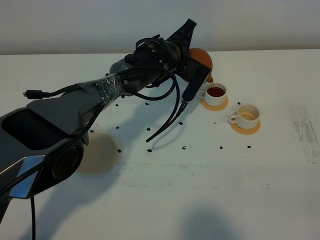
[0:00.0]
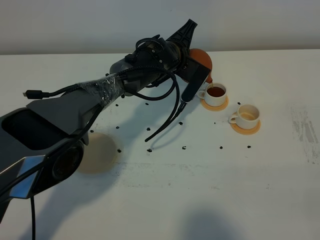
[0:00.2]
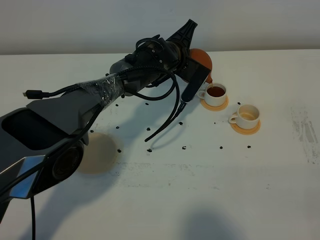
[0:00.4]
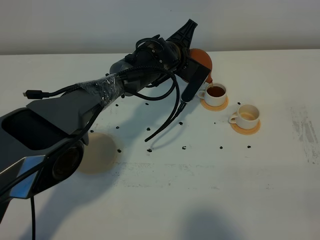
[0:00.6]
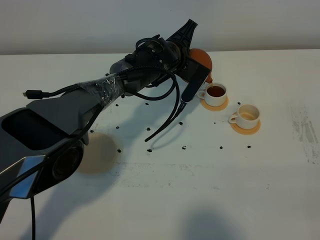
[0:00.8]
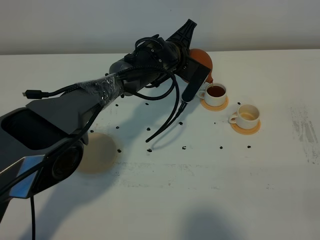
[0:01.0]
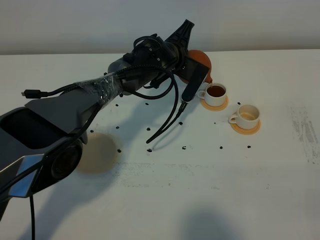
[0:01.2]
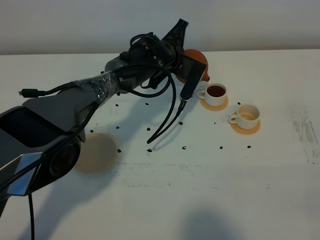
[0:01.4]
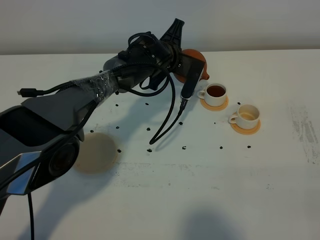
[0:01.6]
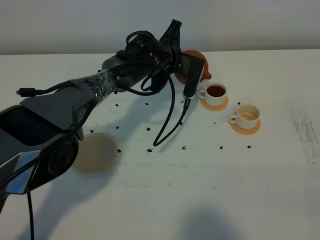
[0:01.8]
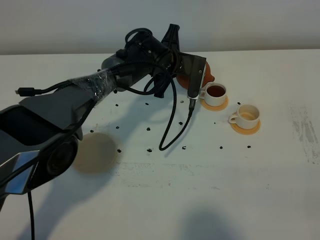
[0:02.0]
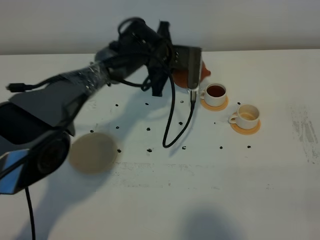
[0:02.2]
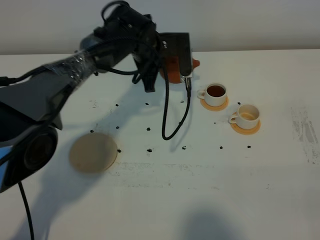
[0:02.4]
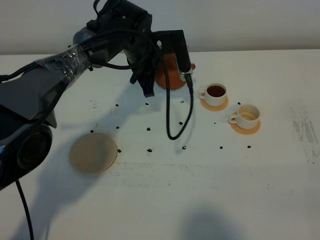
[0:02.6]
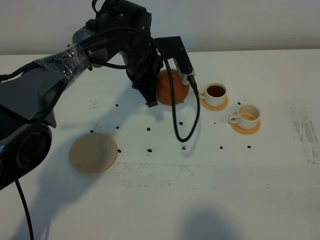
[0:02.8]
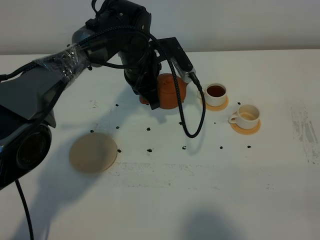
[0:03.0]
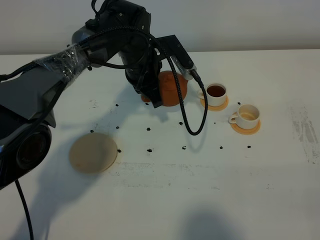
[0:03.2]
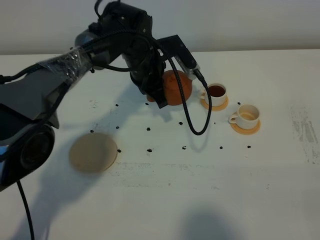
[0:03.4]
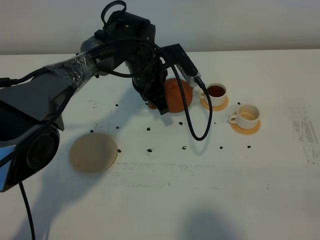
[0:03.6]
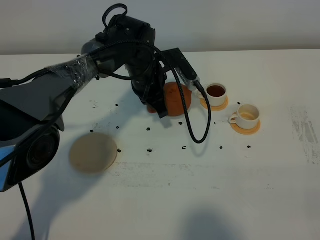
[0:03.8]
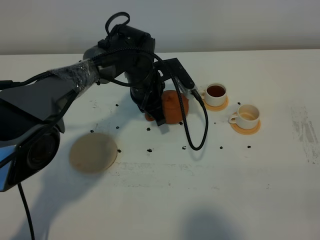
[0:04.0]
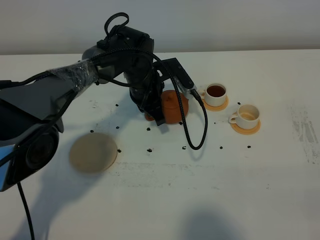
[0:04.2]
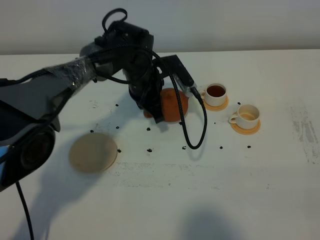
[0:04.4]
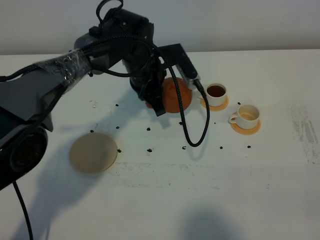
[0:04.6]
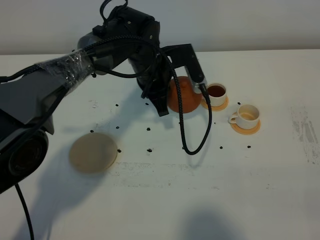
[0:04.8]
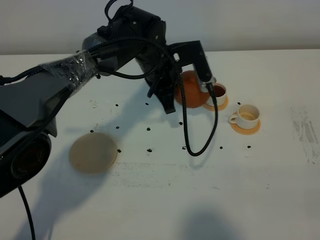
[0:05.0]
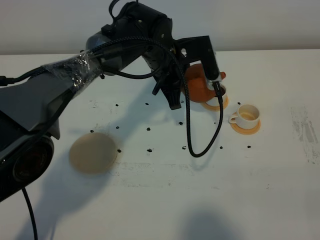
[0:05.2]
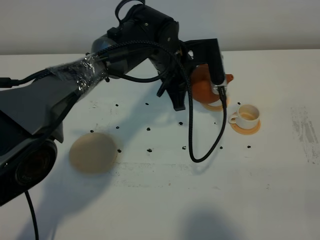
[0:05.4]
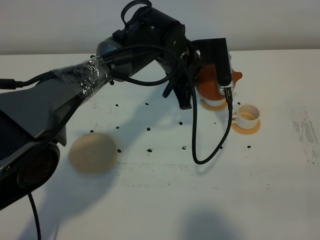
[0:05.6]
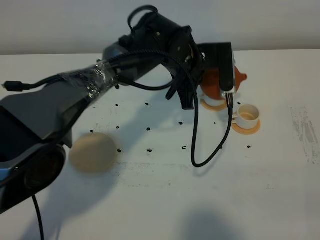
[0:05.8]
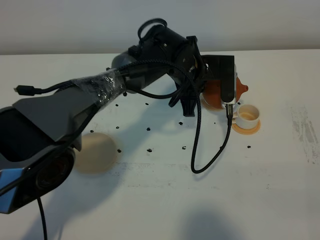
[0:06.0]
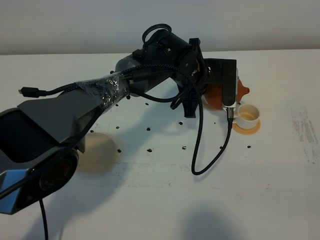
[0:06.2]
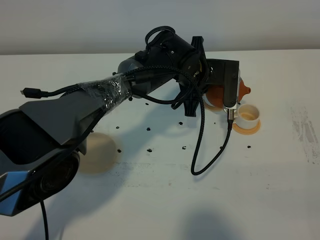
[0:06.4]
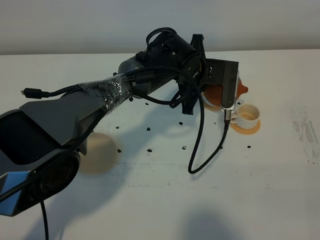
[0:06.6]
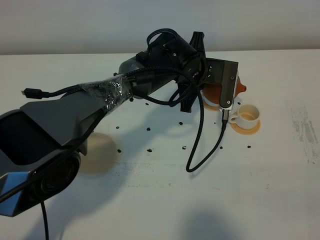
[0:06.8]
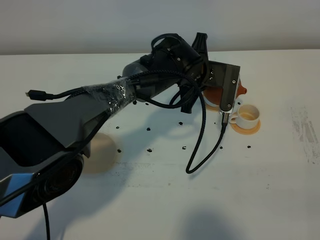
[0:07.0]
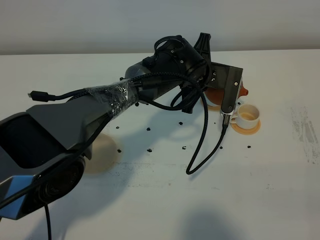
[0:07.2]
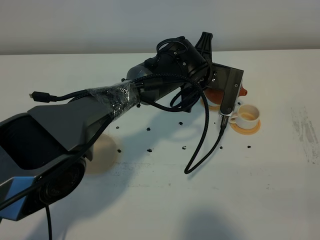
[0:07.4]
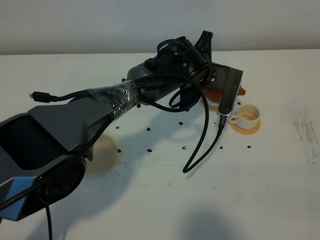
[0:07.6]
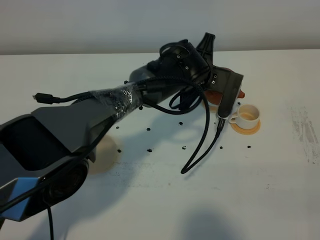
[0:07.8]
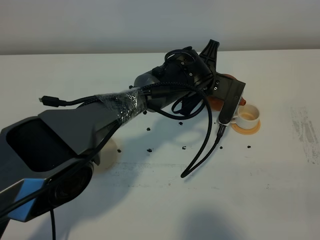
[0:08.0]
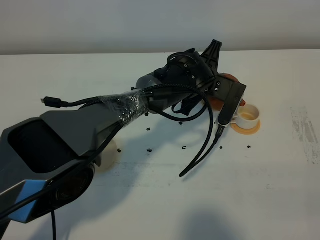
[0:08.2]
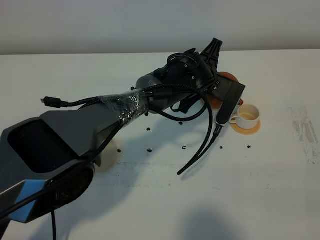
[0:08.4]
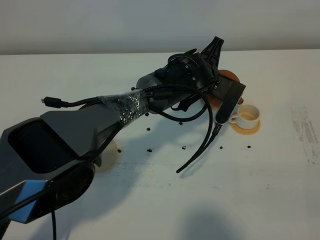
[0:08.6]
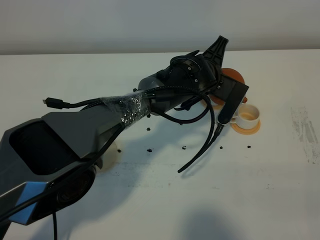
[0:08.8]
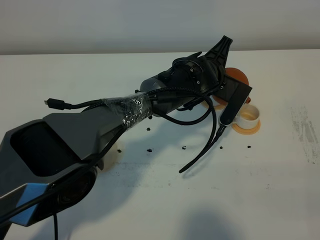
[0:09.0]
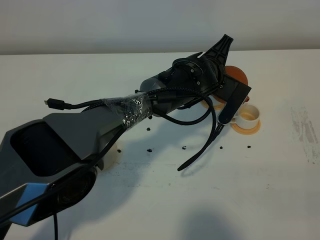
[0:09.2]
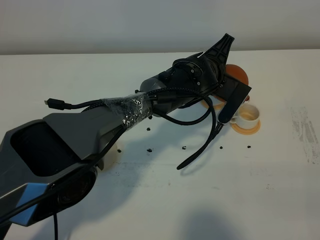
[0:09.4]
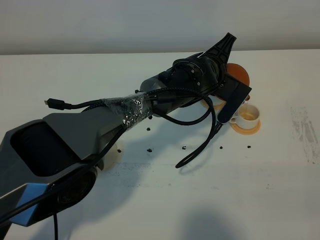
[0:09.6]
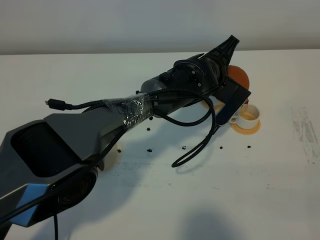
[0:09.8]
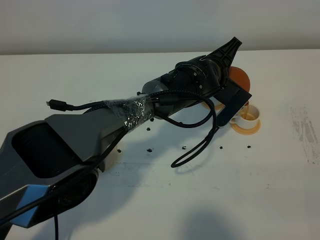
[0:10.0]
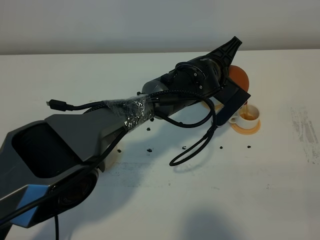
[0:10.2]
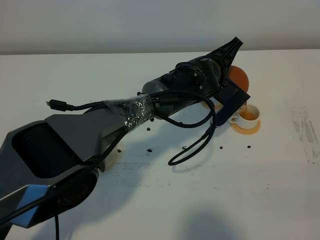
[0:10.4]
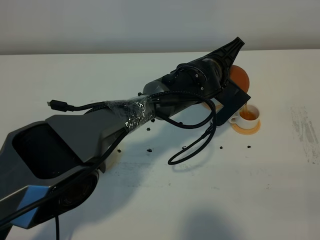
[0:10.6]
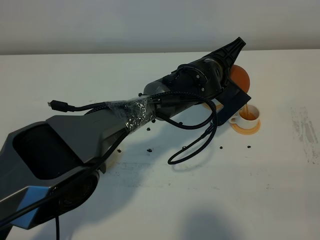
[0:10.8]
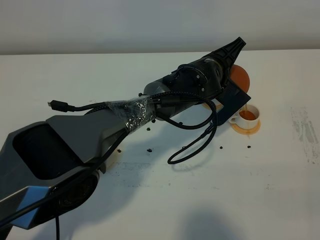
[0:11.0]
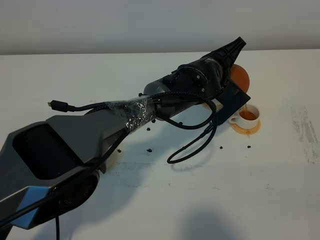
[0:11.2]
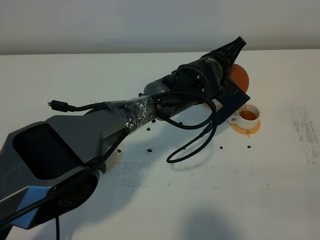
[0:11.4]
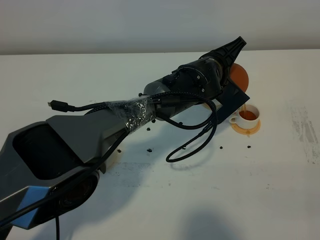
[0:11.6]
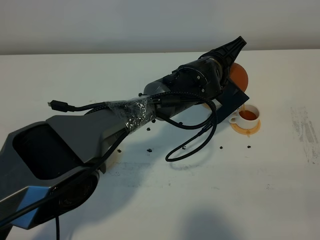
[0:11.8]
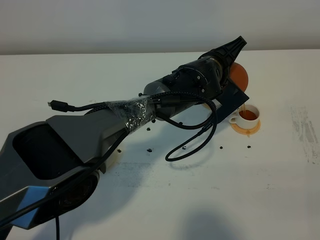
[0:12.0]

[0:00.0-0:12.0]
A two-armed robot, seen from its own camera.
Task of the whole recording: grasp the brown teapot and pour the tea into the two white teacups one by one, put the brown teapot back in its original place.
0:00.0 to 0:01.6: The grippers make only small movements.
0:01.6 to 0:03.0: The left gripper shifts by roughly 5 cm.
0:03.0 to 0:04.4: The grippers stay close to where they were, moving slightly.
0:04.4 to 0:06.0: The left gripper is displaced to the right by roughly 10 cm.
0:07.6 to 0:09.0: The grippers make only small movements.
0:09.0 to 0:10.4: The grippers stay close to where they were, moving slightly.
0:10.4 to 0:12.0: The grippers stay close to where they were, moving slightly.

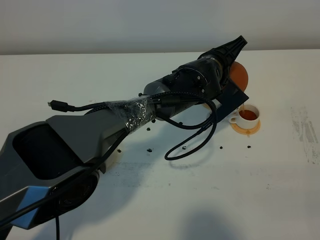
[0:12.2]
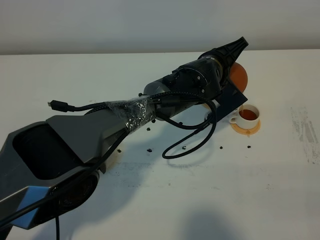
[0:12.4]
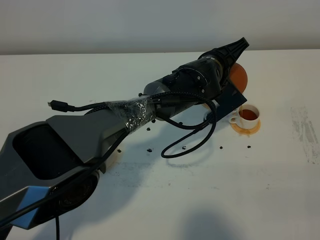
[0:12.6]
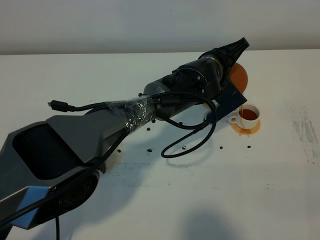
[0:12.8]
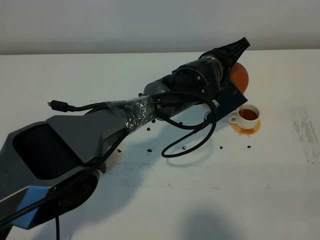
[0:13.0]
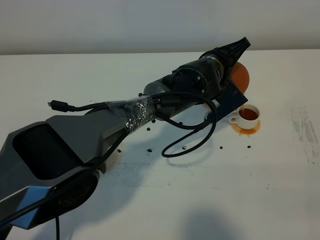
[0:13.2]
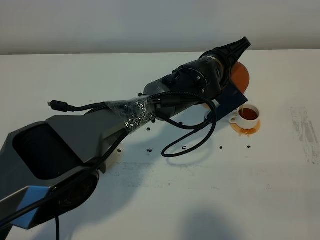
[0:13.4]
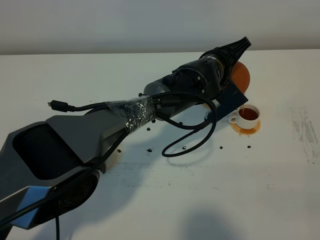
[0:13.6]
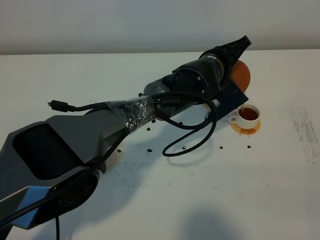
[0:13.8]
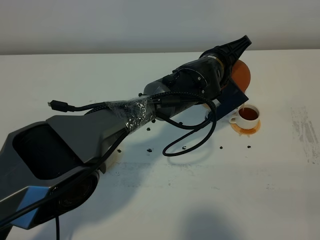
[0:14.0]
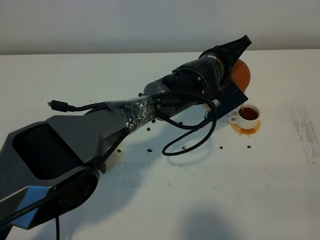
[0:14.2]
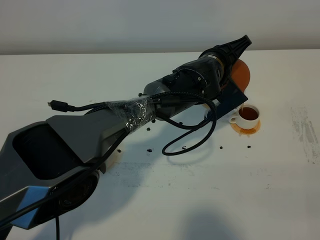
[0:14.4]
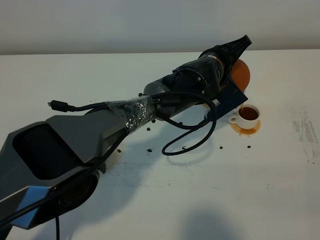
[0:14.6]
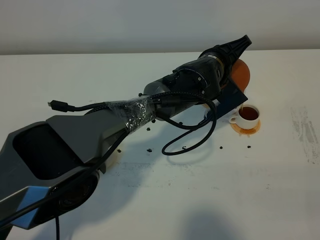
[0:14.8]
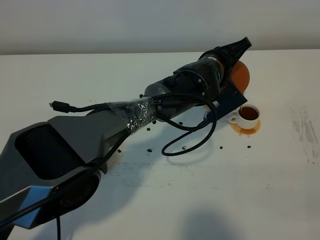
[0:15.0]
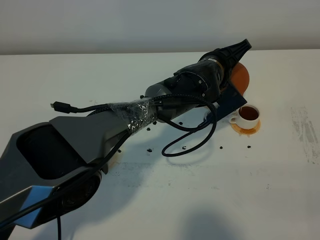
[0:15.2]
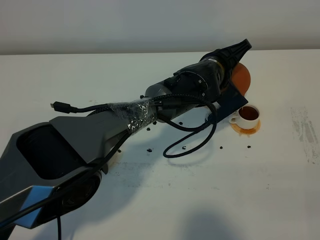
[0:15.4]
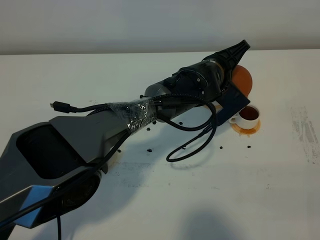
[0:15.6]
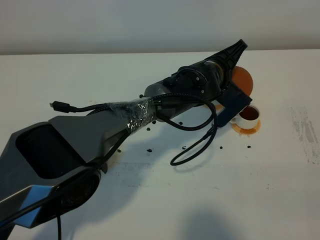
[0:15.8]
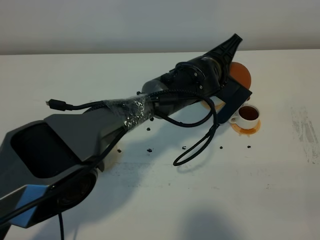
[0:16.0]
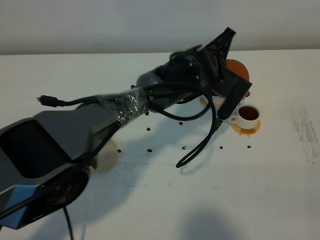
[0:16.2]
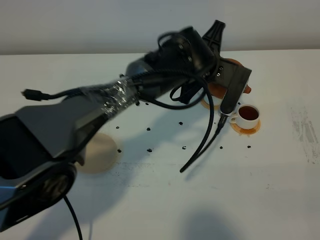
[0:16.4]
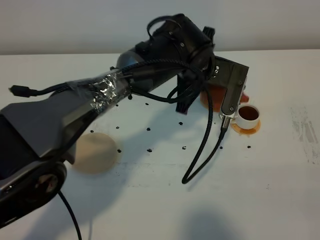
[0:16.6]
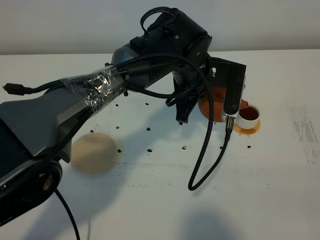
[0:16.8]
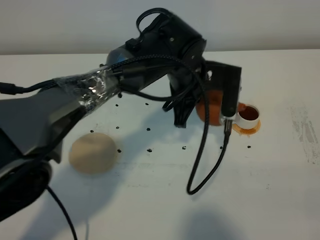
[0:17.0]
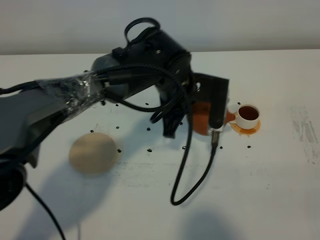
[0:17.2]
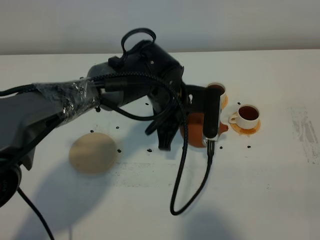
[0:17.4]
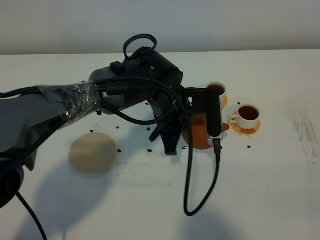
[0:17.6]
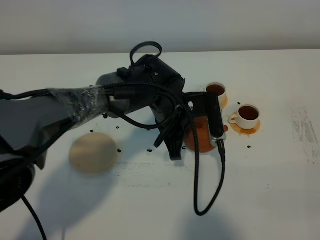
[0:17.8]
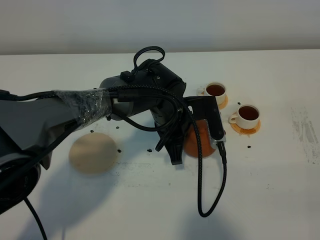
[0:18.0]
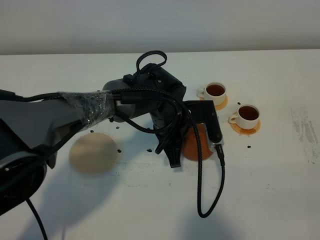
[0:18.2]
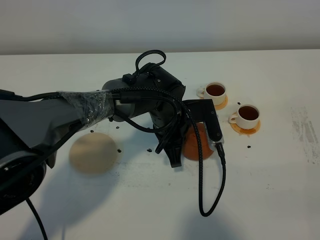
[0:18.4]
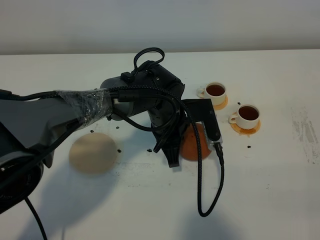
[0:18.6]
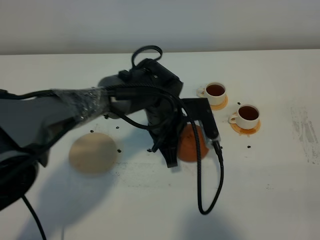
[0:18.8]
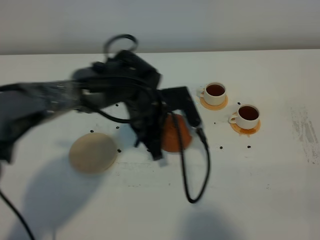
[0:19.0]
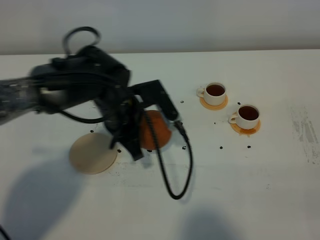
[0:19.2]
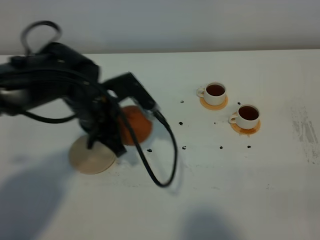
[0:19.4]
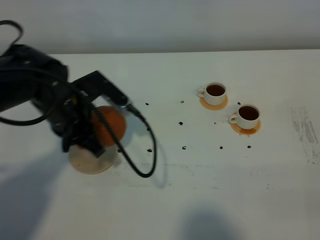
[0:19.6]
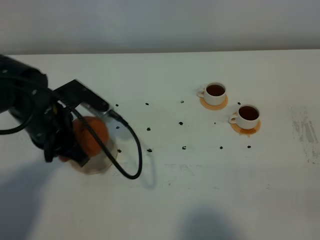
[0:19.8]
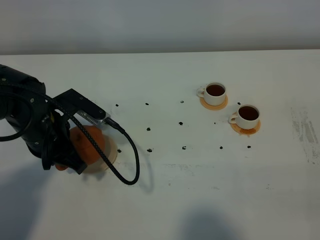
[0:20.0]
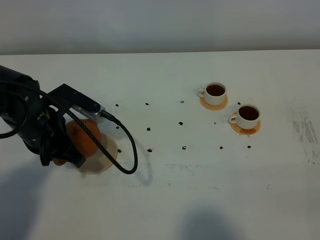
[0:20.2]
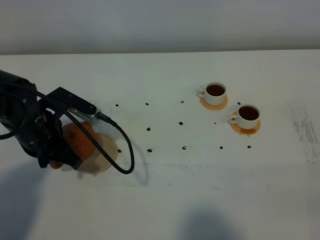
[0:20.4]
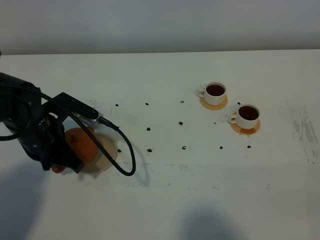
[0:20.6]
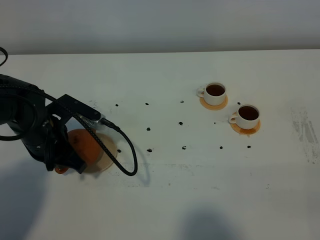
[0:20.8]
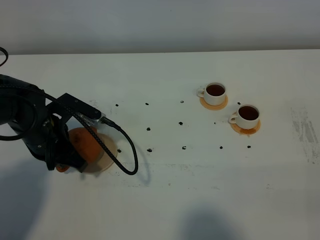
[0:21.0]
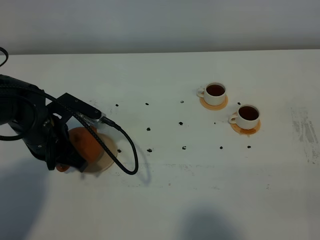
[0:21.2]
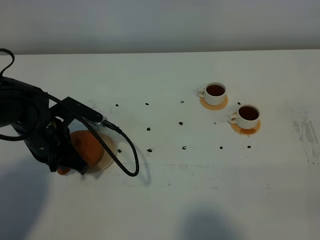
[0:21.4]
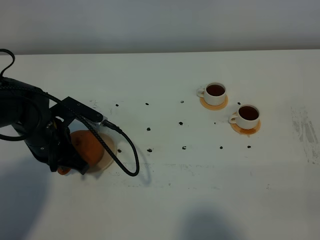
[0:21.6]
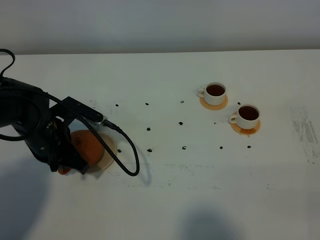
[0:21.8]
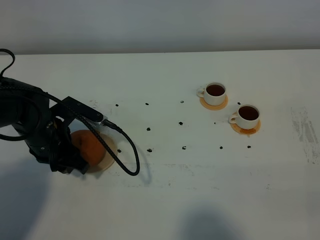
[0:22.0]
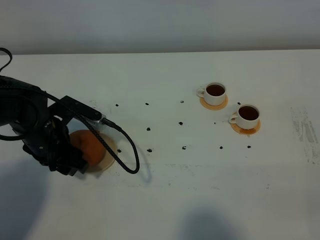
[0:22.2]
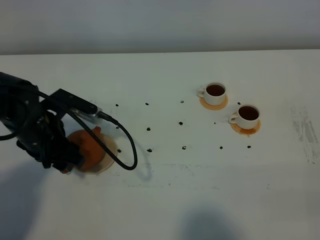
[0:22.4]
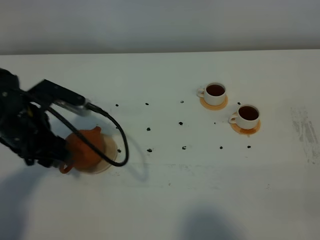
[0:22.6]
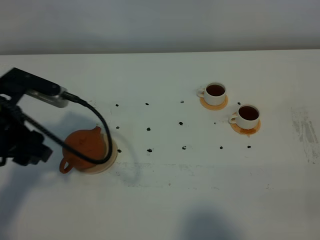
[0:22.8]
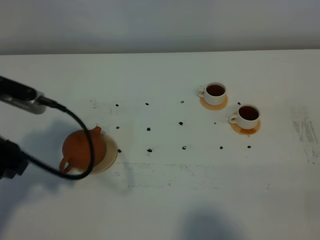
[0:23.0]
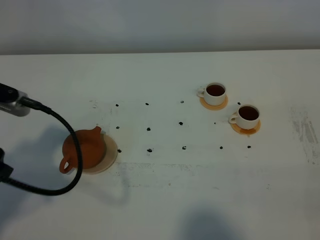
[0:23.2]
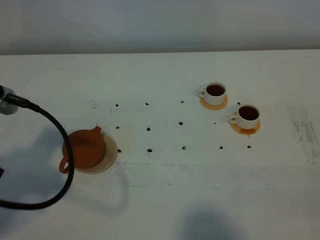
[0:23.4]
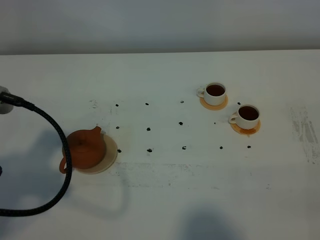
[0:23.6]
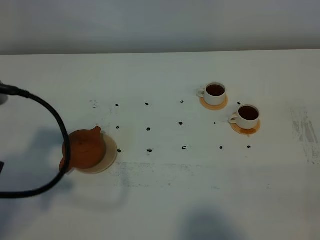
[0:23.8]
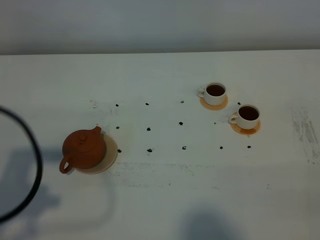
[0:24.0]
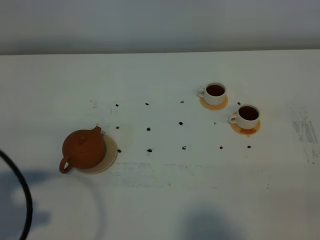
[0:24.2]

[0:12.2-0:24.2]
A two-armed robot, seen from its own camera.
Task of the whole recording: grasp the brown teapot and pour the tea into the two white teacups one by one, put the brown teapot back in its original place.
Step, 0:12.2 to 0:16.2: Pour tea into the teacup with the left gripper.
0:12.2 to 0:13.8: Both grippers stay about where they are.
0:13.8 to 0:15.2: The two grippers keep their place.
0:15.2 to 0:16.6: The left gripper shifts approximately 5 cm upward.
0:16.6 to 0:18.2: The left gripper travels downward by some 10 cm.
0:18.2 to 0:19.8: The left gripper heads to the left, covering some 20 cm.
0:19.8 to 0:21.2: The grippers move only a little.
0:21.2 to 0:22.6: The left gripper moves upward, roughly 5 cm, and opens up.
0:22.6 to 0:24.2: The left gripper heads backward and to the left, covering roughly 20 cm.
